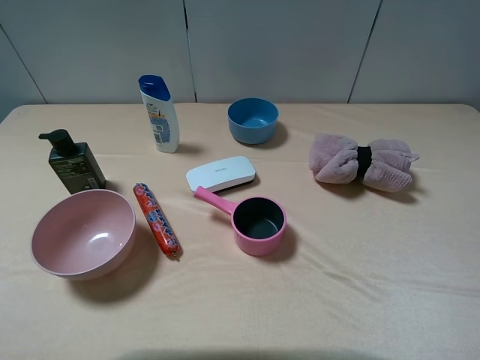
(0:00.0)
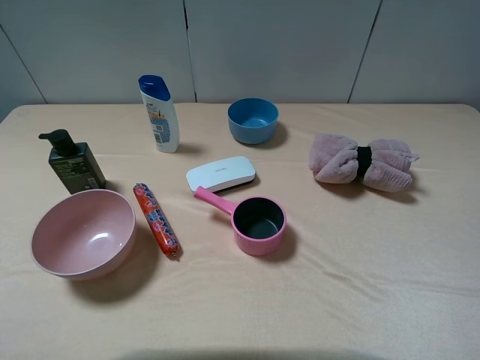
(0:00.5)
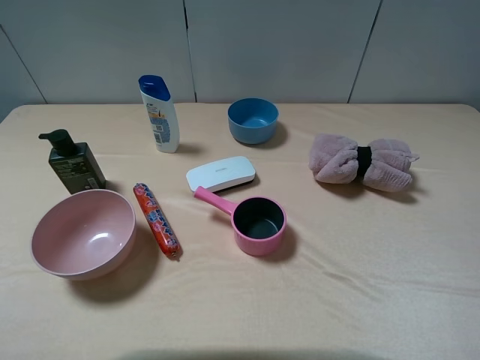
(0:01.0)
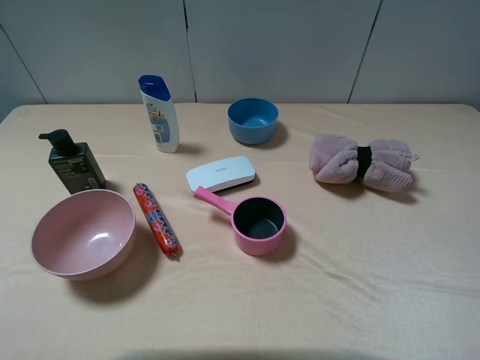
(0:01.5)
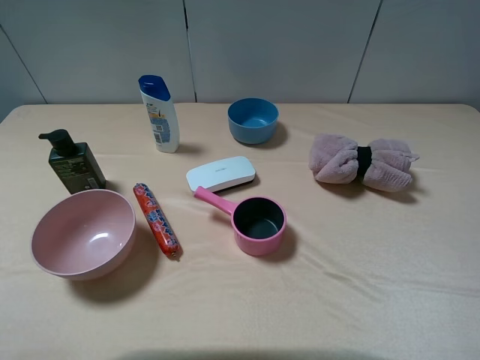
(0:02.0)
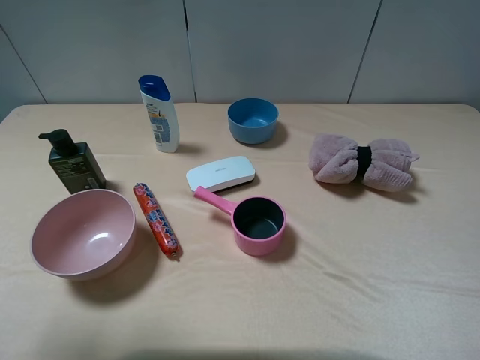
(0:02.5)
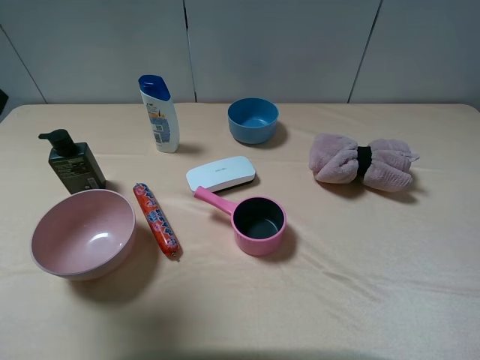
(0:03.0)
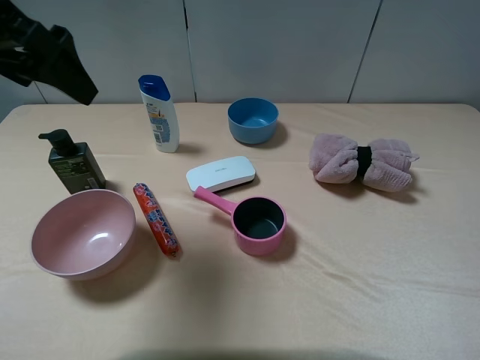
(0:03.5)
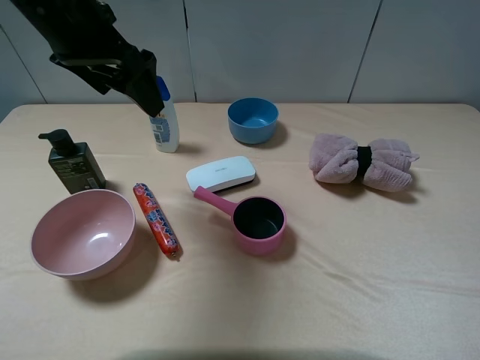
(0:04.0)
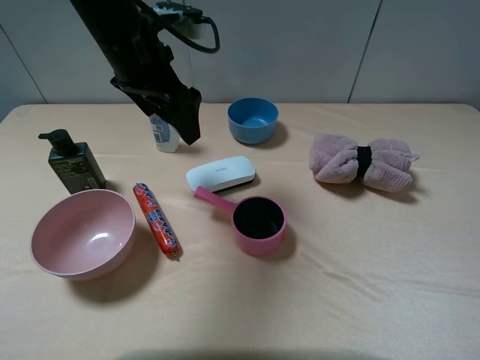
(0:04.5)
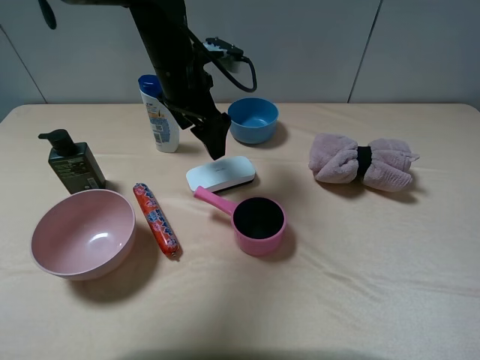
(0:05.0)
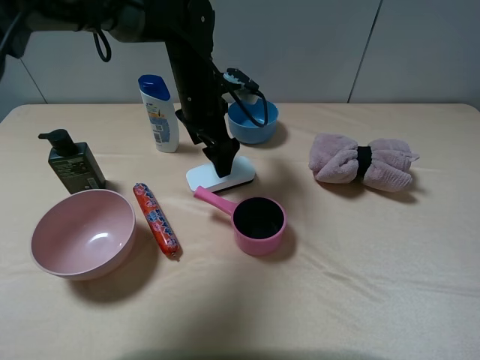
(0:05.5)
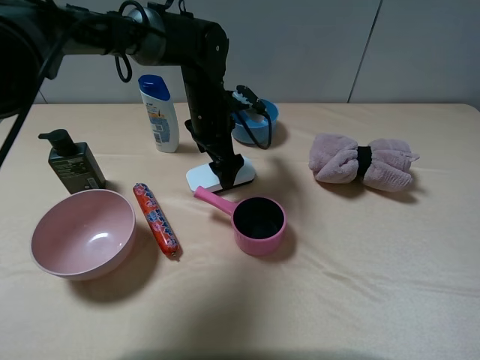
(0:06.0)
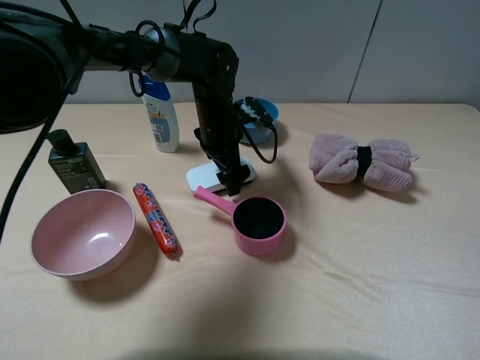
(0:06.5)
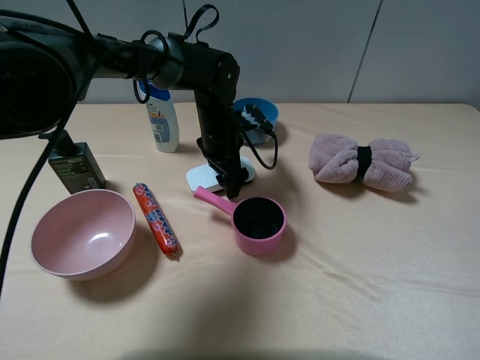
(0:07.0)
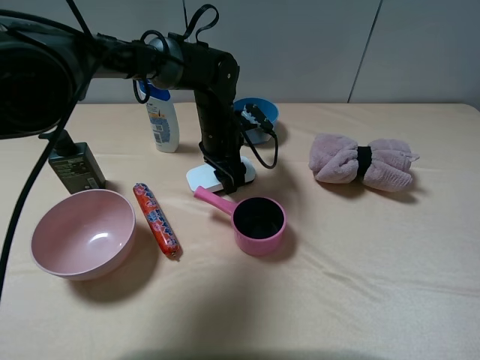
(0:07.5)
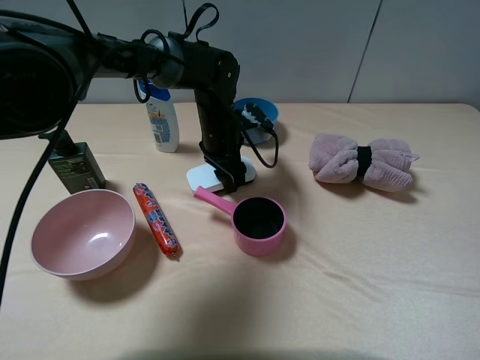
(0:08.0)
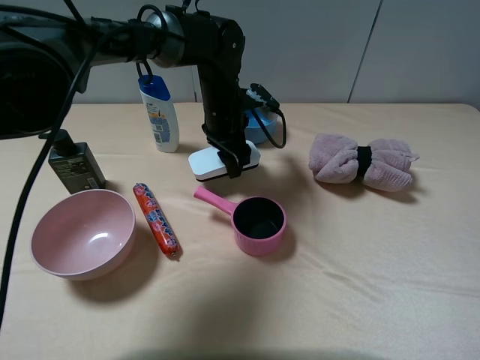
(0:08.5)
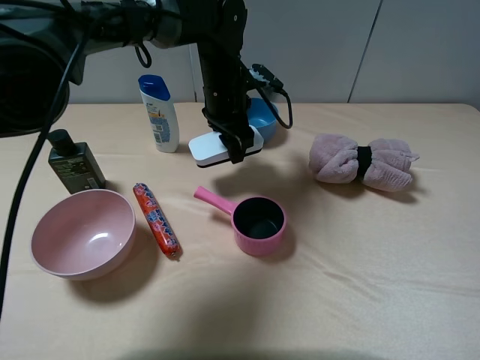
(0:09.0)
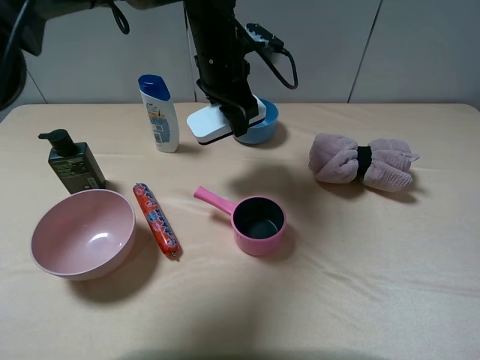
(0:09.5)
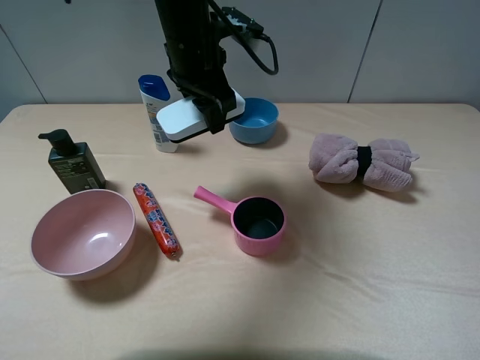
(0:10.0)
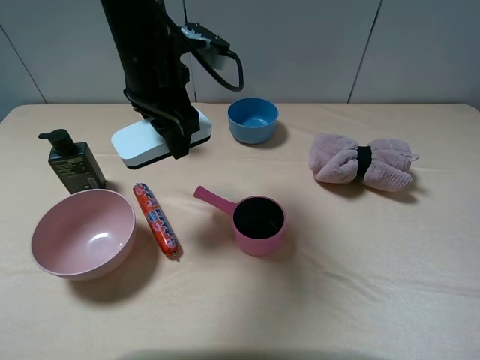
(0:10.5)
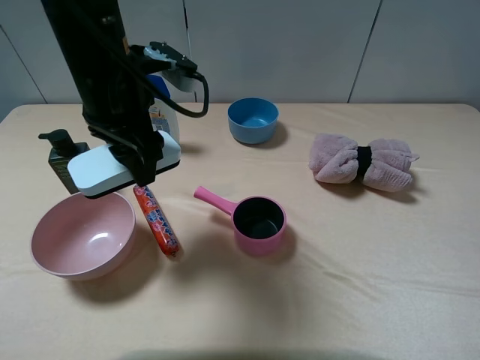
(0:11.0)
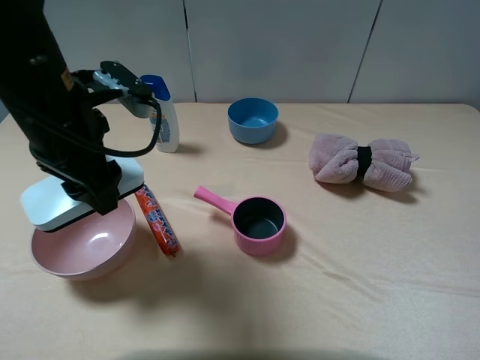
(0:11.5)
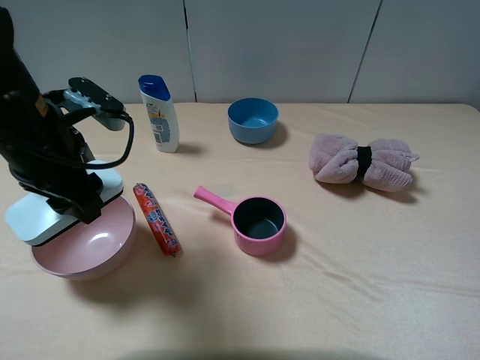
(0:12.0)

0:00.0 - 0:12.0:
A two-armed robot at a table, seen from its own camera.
Task of the whole recording: pick up an item with a gripper and place it in a random container on the table.
Step, 0:00.0 - 0:07.5: Grasp the white blackboard erasure with the left gripper.
0:02.0 - 0:04.0: The left gripper moves forward and to the right, approximately 30 cm.
0:04.0 - 0:06.0: The left gripper is displaced downward, to the right and forward by roughly 25 cm.
0:06.0 - 0:08.0: The left gripper closes up.
0:08.0 - 0:10.0: The left gripper shifts approximately 15 cm upward.
0:10.0 - 0:12.0: The left gripper moves backward and to the left, approximately 20 cm.

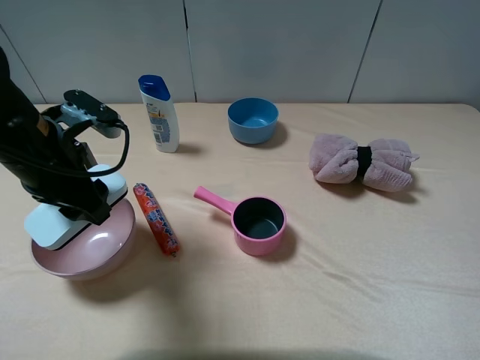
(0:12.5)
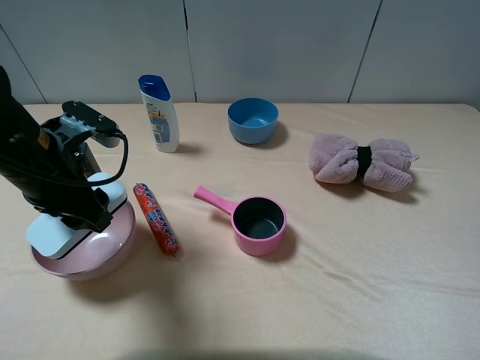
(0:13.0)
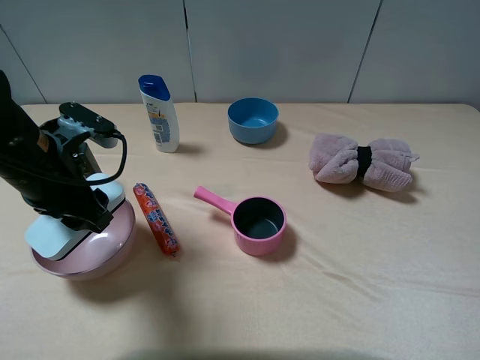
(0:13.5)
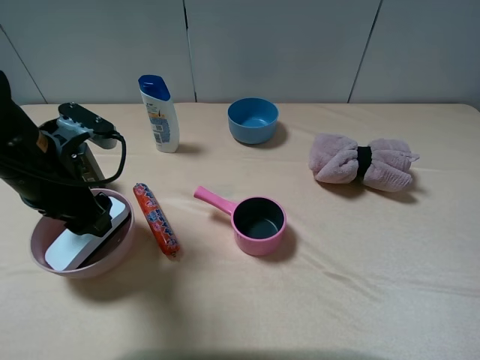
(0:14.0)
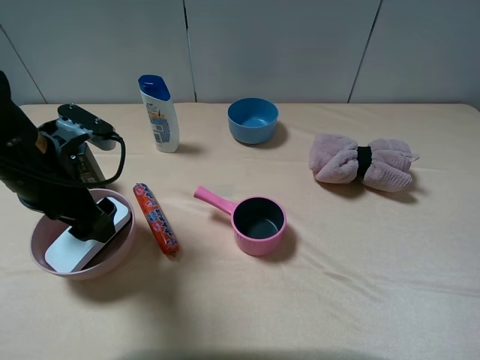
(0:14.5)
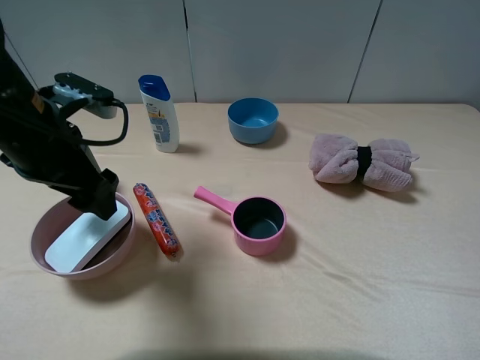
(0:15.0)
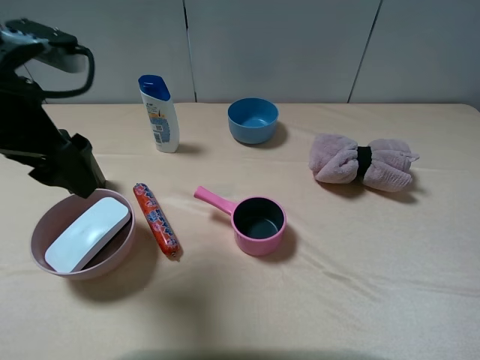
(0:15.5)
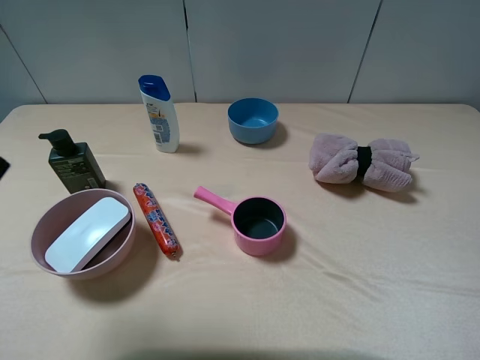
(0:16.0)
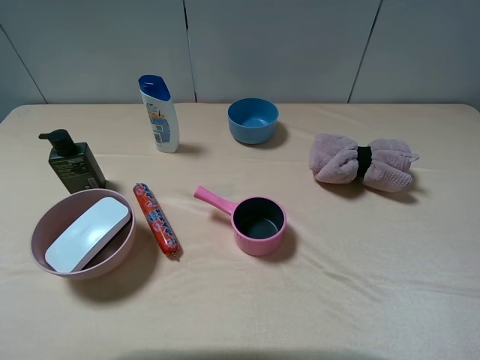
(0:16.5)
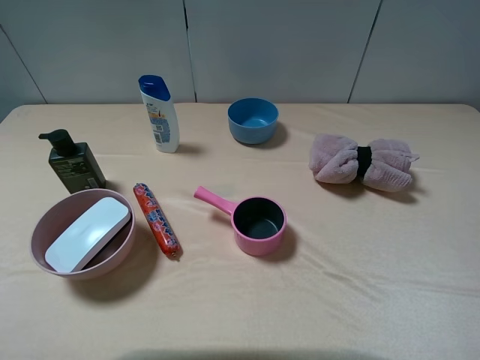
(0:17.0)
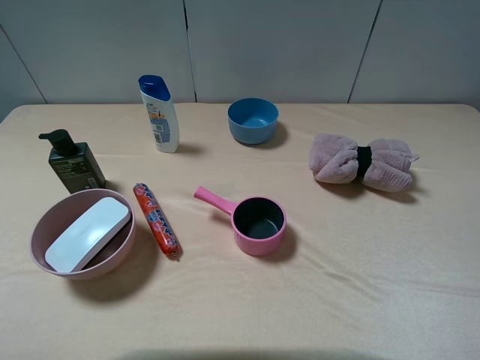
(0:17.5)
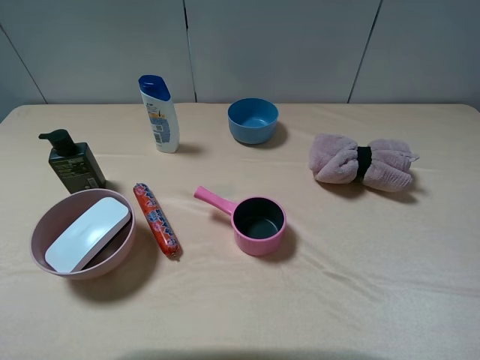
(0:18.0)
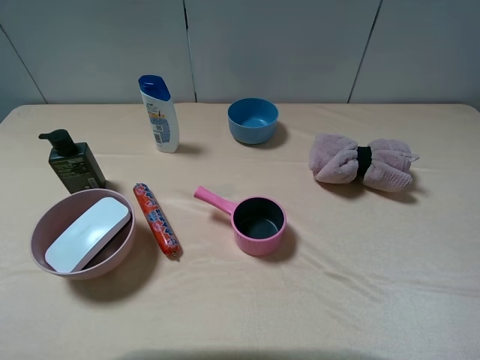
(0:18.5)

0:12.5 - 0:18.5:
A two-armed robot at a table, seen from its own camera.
Task of the whole recording: pick up an item with a gripper and place it in a random container on the table.
Step, 0:12.5 - 0:15.5: Place the white blackboard erasure into the pink bowl with the left gripper.
0:12.5 - 0:14.5: The left gripper opens its fingers.
0:14.5 - 0:16.5: The left gripper is displaced upward, backward and to the left by about 25 cm.

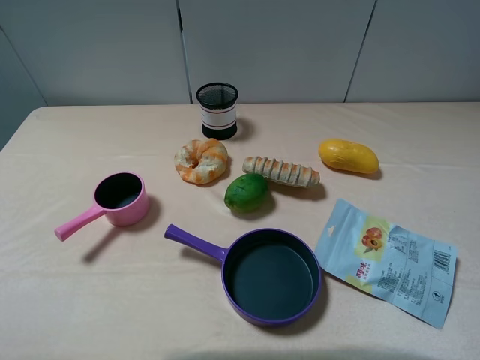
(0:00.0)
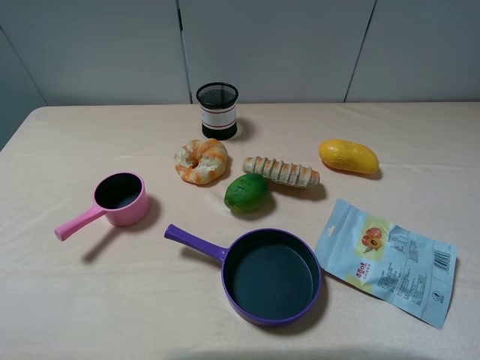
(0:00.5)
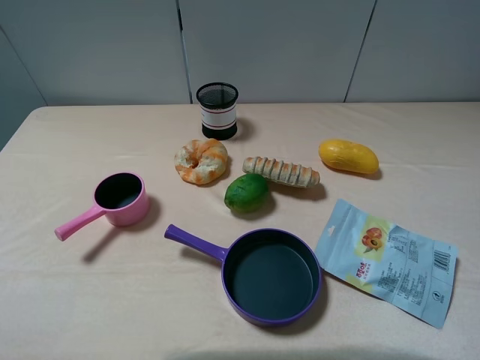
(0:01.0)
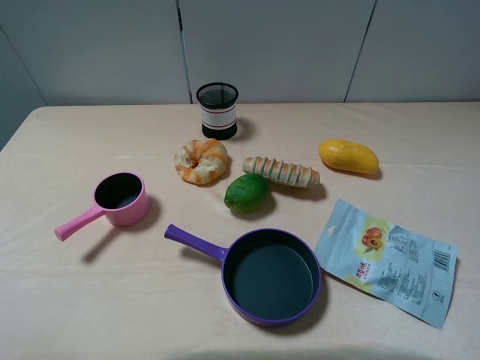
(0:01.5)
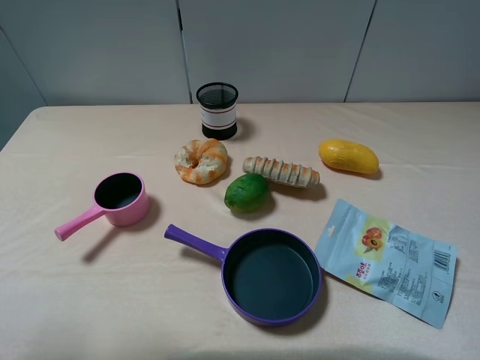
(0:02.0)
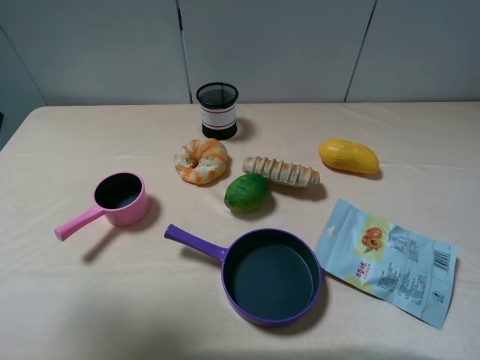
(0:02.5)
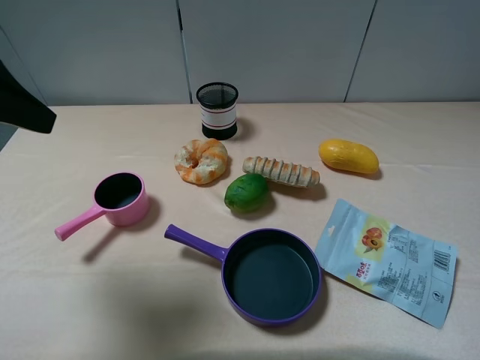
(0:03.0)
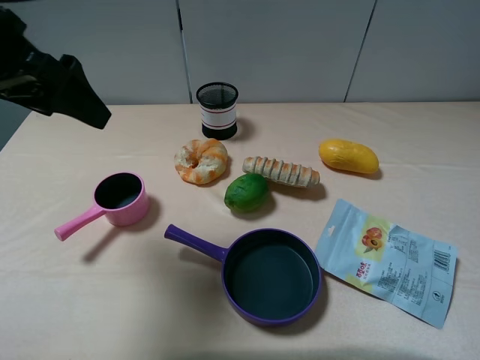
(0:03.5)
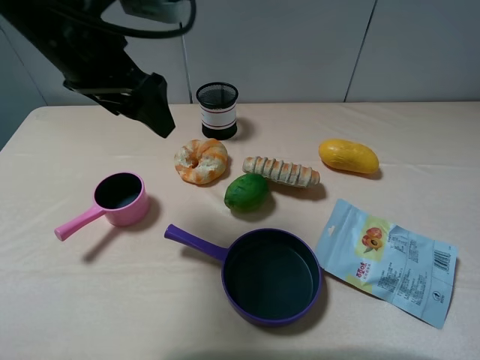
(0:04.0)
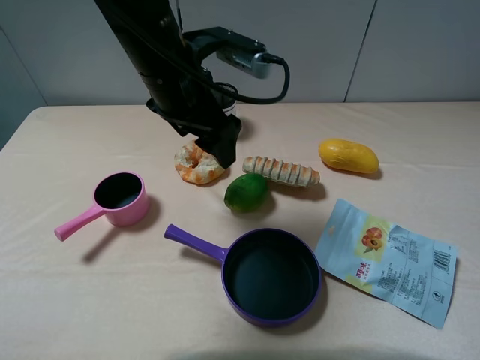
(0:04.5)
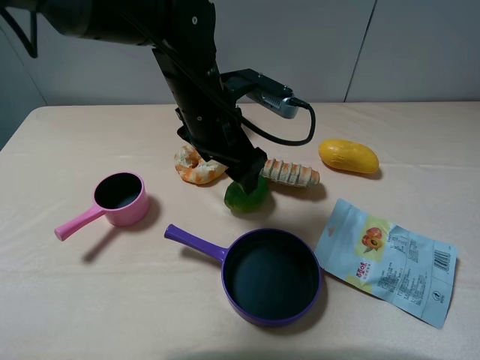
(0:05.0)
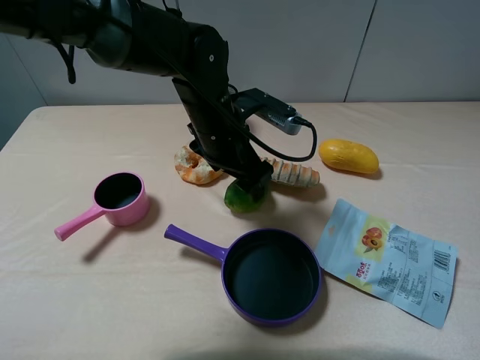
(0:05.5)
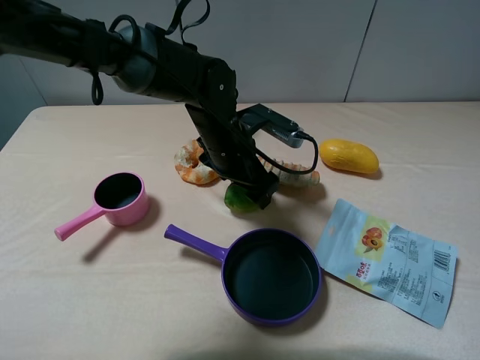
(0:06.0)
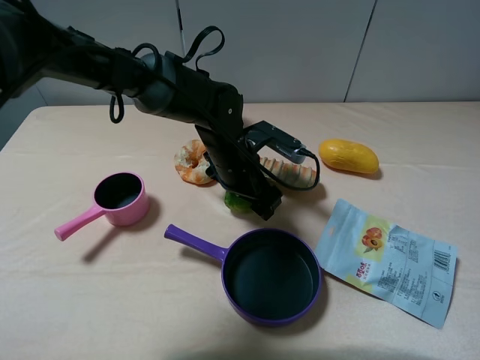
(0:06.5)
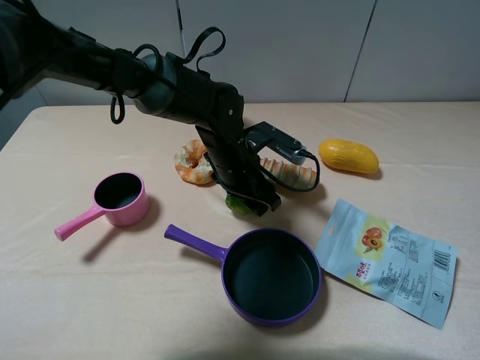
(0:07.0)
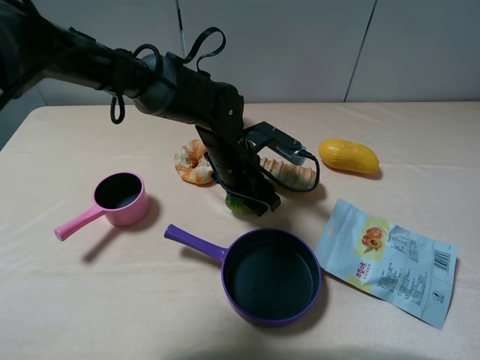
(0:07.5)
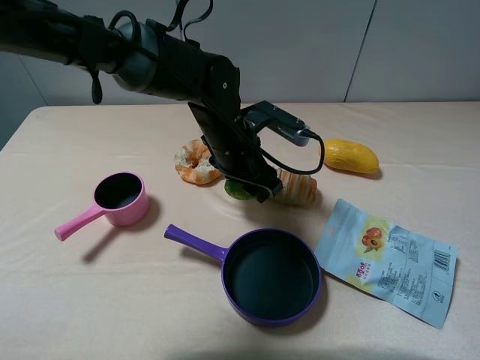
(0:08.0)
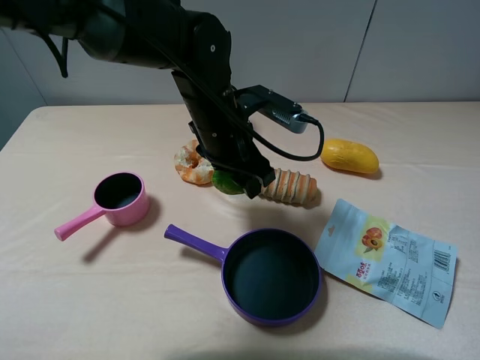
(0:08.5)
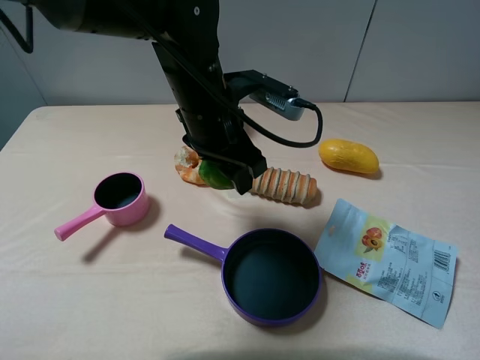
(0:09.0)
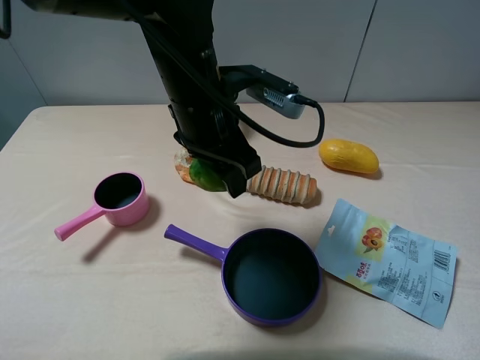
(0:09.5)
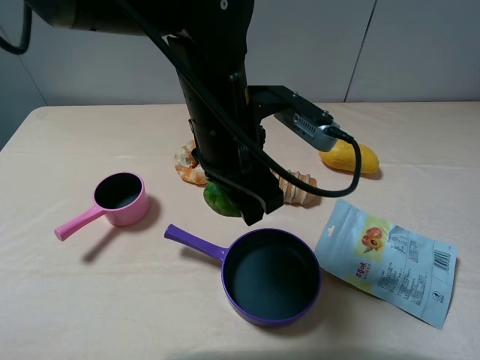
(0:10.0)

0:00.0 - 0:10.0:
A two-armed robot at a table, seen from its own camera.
Task of the whole recording: pick up an item with a gripper and place it in a random container on the table.
Step, 0:00.0 - 0:07.5: Grasp the green lemon with the left gripper.
0:02.0 - 0:04.0: The left gripper moves forward and to the right, approximately 25 cm.
0:04.0 - 0:06.0: The left gripper travels downward and to the right by approximately 20 cm.
0:06.0 - 0:08.0: The left gripper closes up.
0:08.0 - 0:10.0: The left gripper shifts some 10 cm upward and backward.
